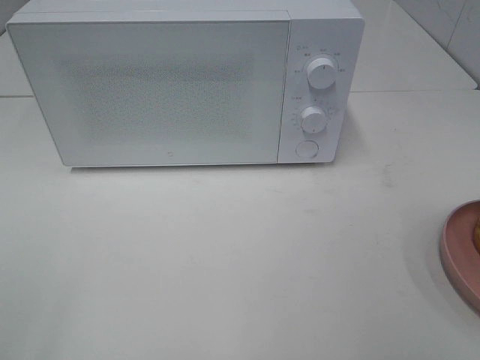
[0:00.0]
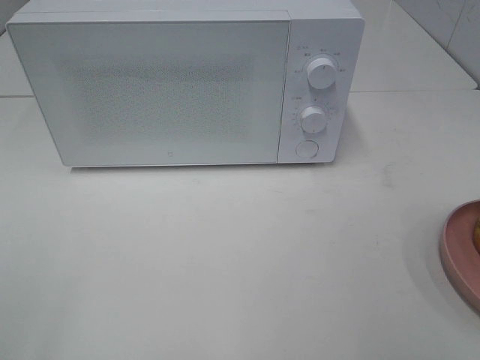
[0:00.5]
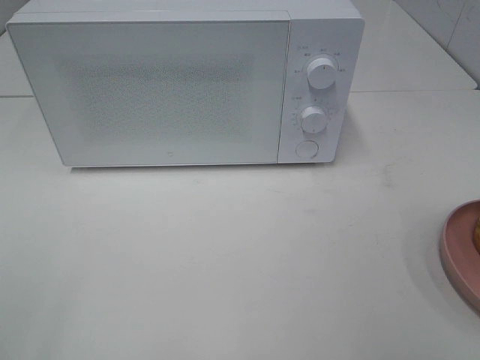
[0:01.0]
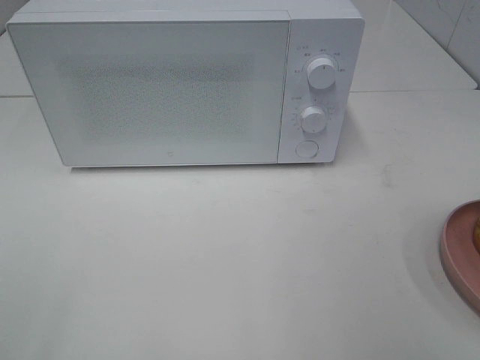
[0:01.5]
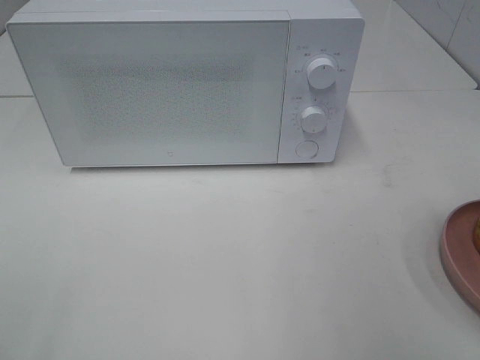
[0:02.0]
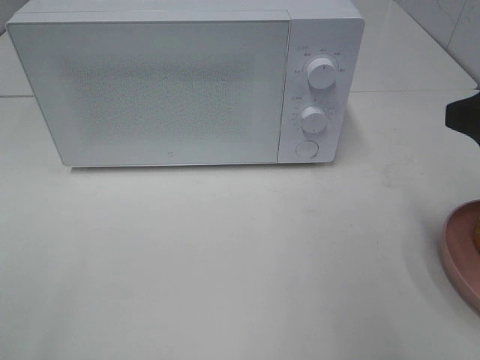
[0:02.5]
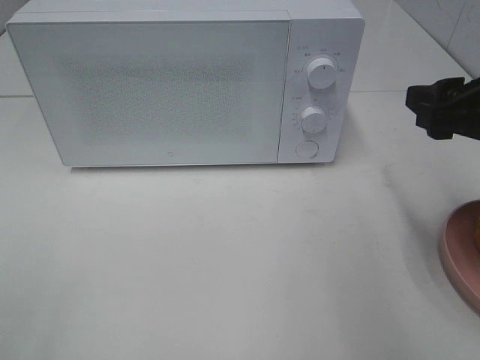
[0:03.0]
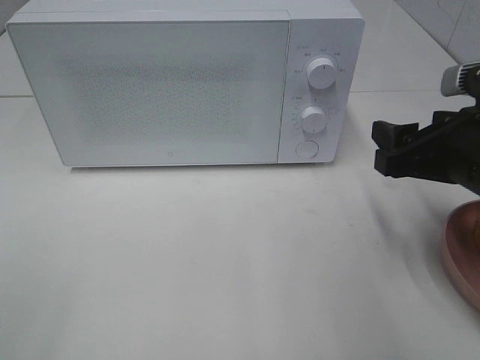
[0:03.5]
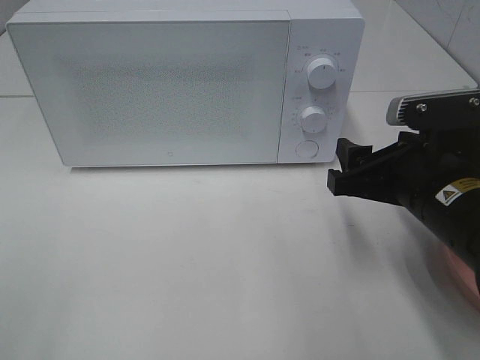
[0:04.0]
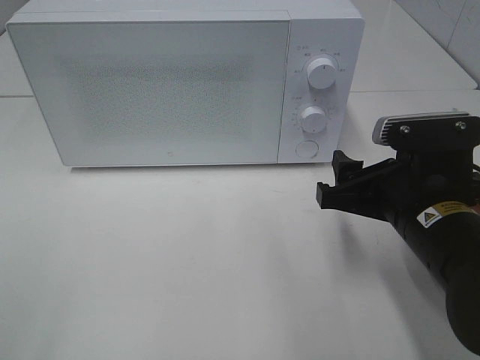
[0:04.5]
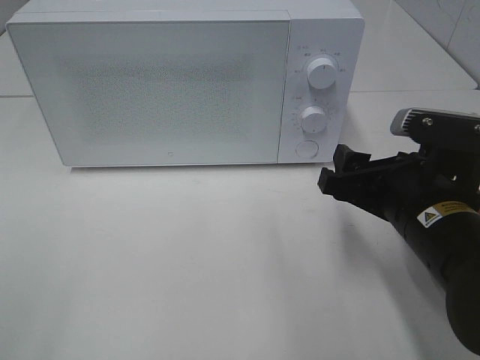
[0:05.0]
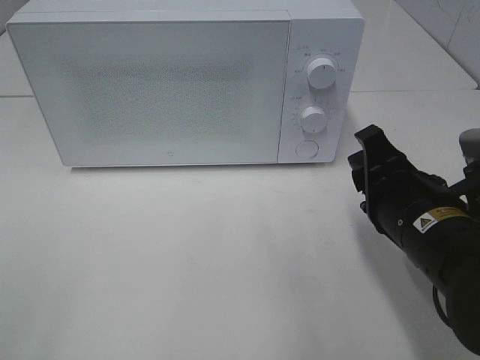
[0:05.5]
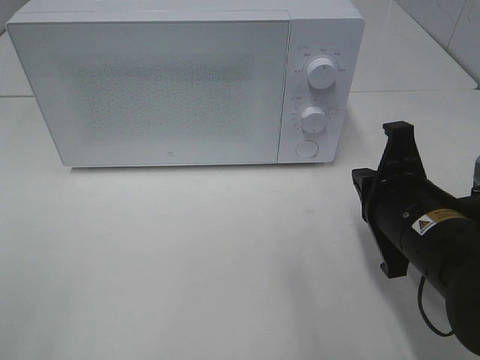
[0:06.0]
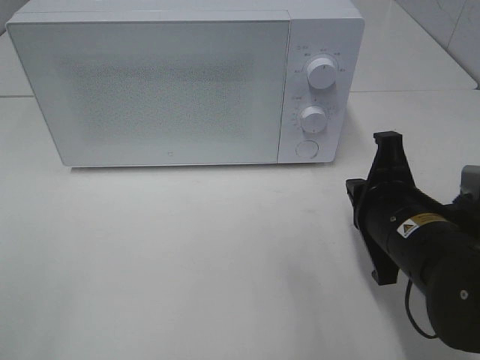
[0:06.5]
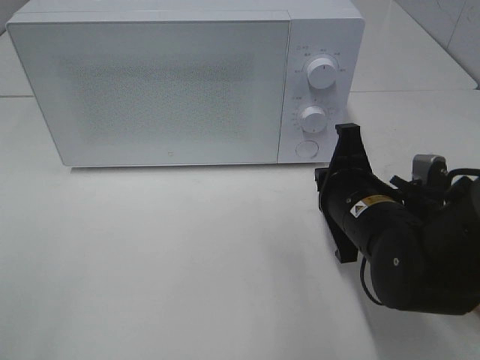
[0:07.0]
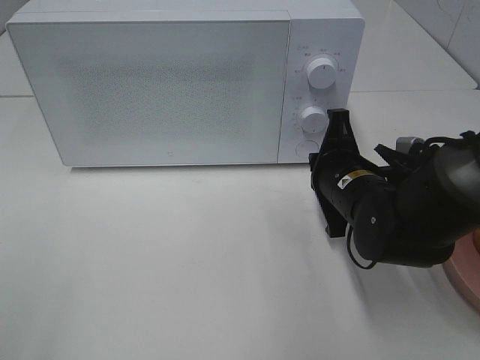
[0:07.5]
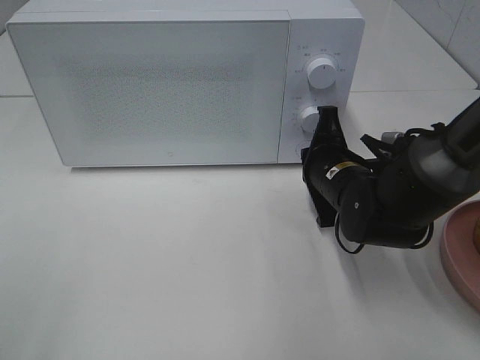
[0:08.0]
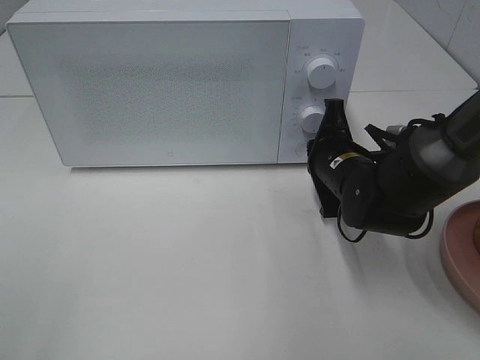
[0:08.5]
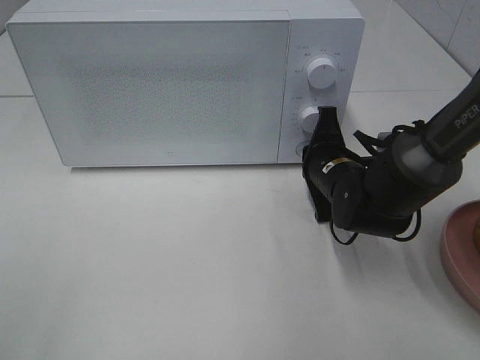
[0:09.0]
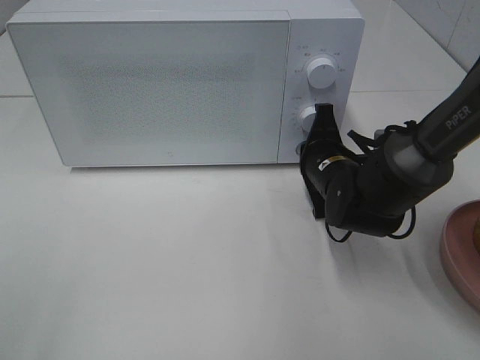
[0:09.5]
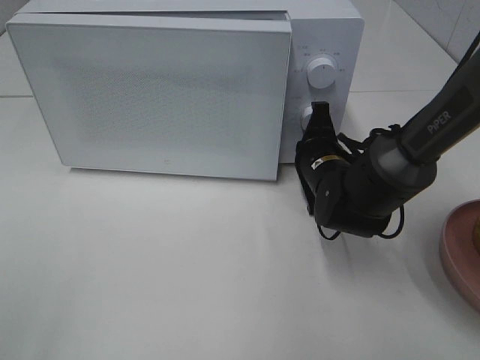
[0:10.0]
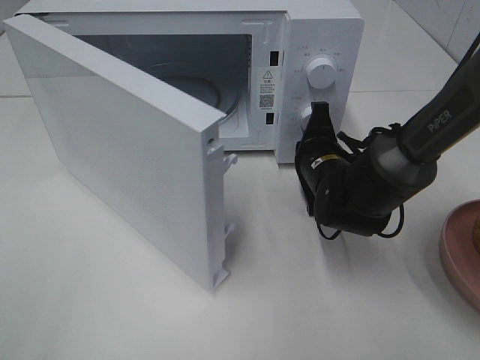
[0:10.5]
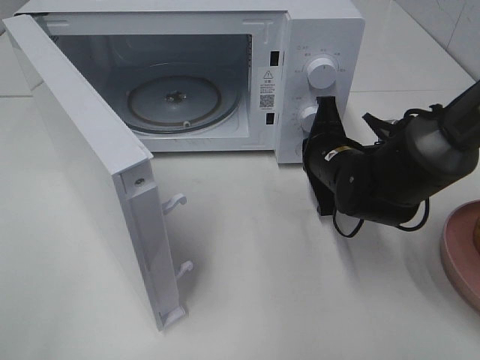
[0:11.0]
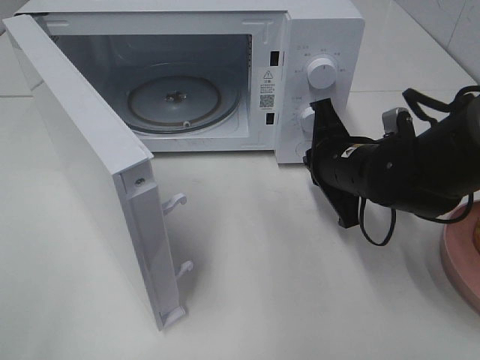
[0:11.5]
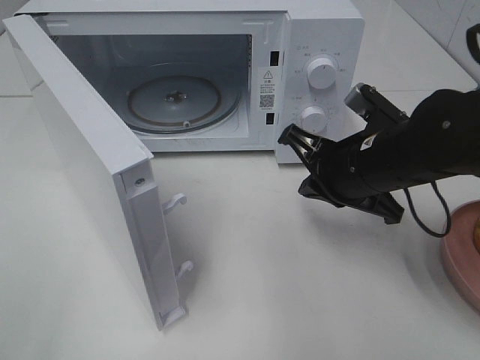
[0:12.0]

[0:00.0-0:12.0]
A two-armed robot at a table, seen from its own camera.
Task of the whole recording: Heat the burger.
Step, 0:00.0 to 0:11.0: Right hand: press the switch.
0:02.0 to 0:04.0: The right gripper goes about 20 cm downward, forward and to the left.
0:04.0 to 0:06.0: The right gripper closes up.
0:06.0 to 0:08.0: The right gripper shifts roughly 15 cm forward and downward.
0:08.0 to 0:10.0: There are only small adjustments of the grippers.
0:10.0 to 0:12.0: The right gripper shifts approximately 10 cm upward and backward.

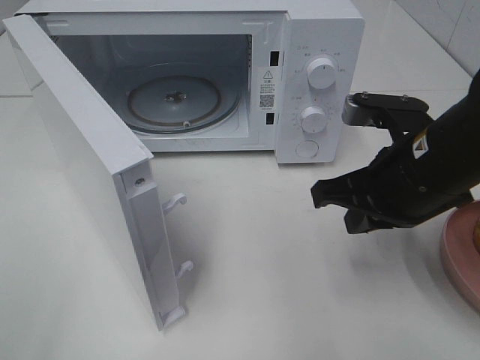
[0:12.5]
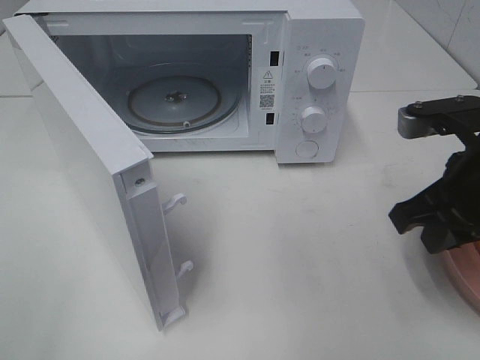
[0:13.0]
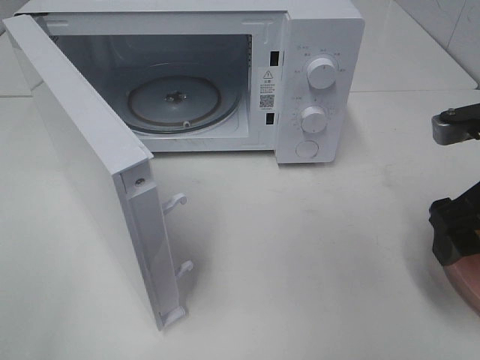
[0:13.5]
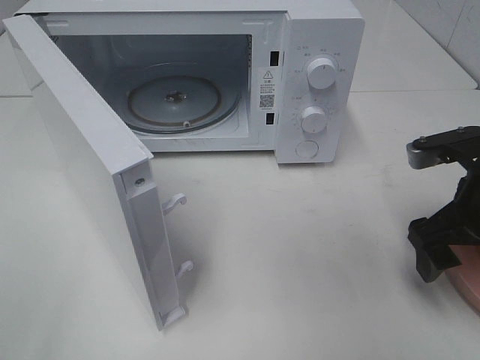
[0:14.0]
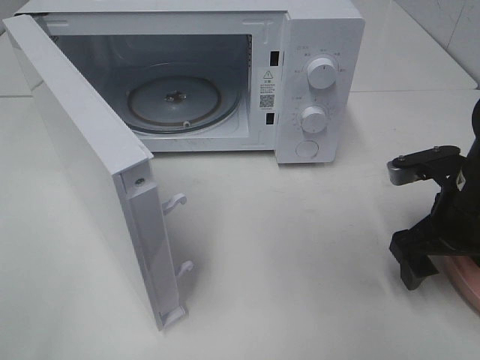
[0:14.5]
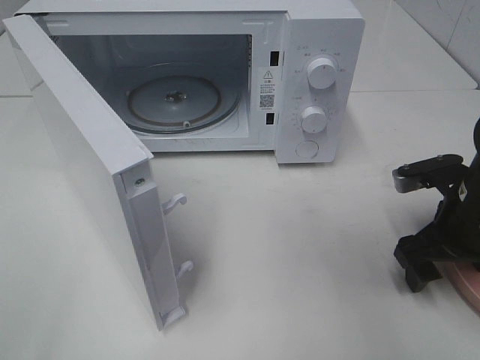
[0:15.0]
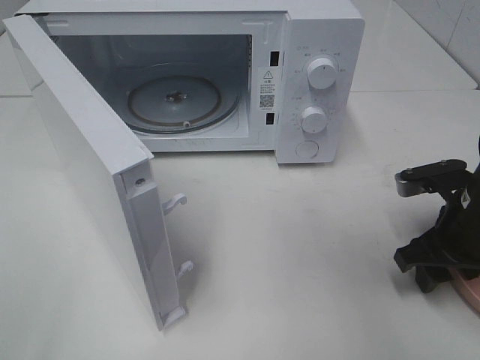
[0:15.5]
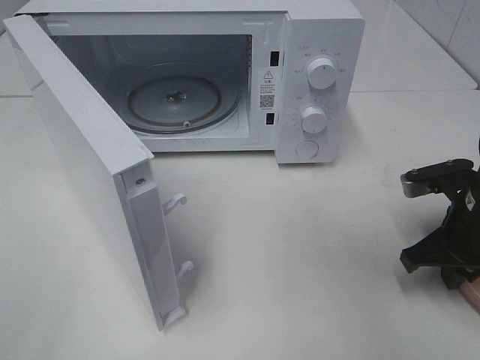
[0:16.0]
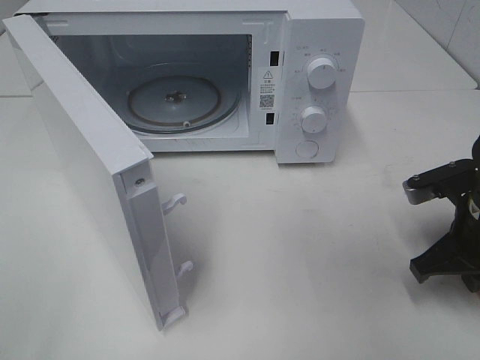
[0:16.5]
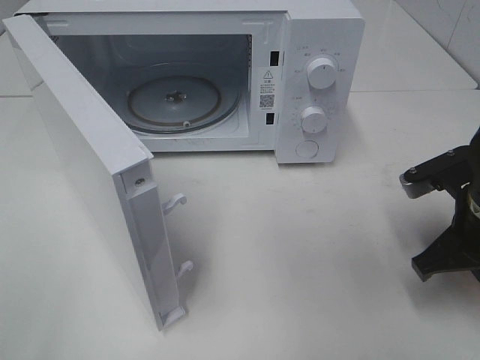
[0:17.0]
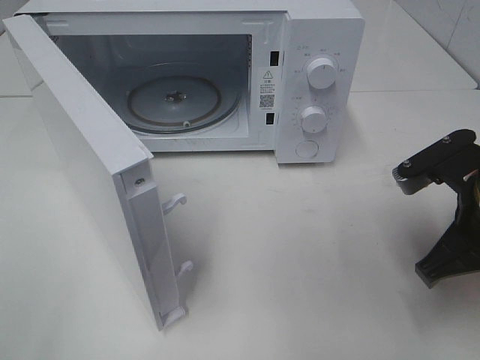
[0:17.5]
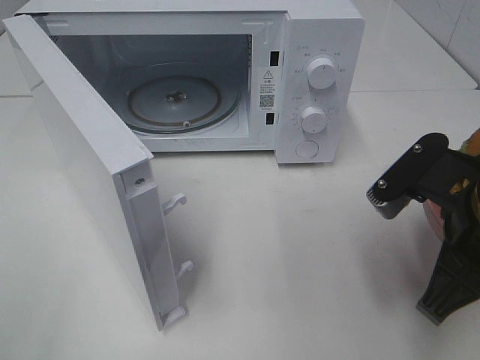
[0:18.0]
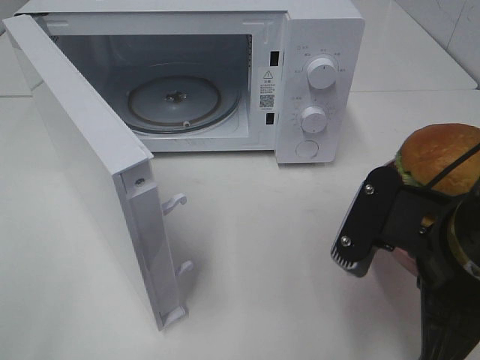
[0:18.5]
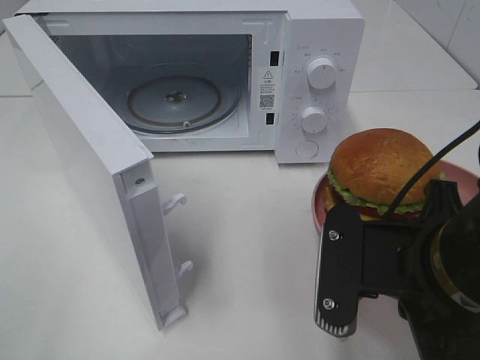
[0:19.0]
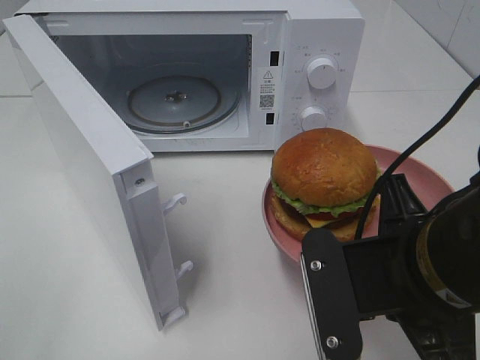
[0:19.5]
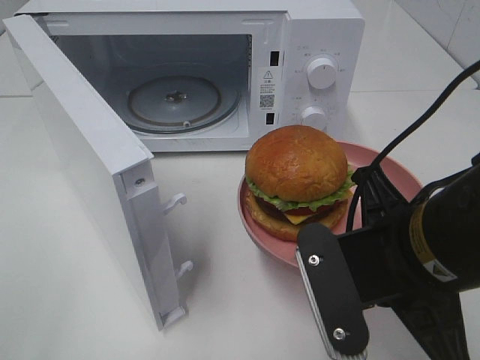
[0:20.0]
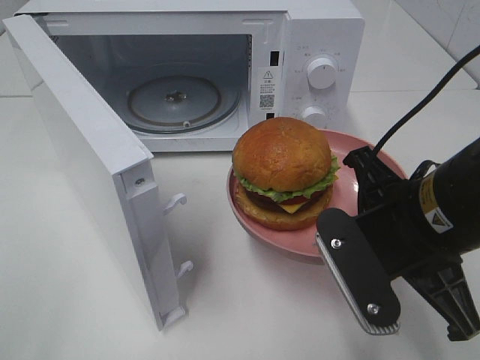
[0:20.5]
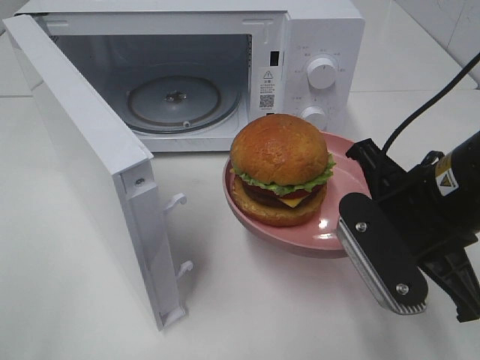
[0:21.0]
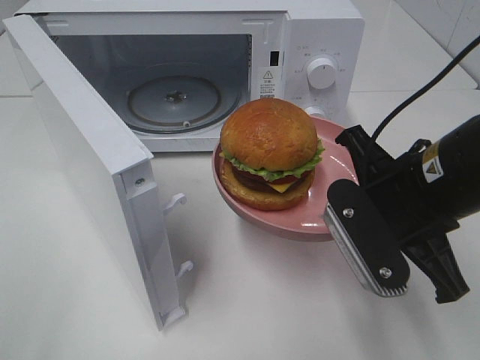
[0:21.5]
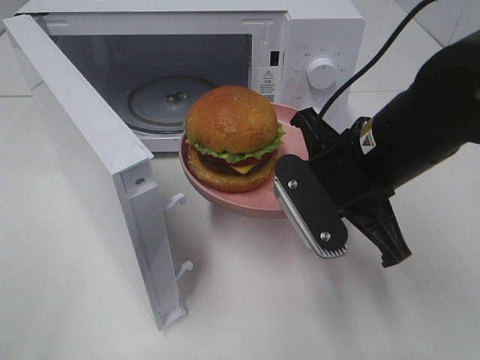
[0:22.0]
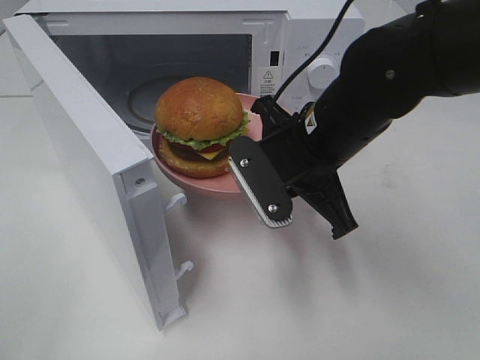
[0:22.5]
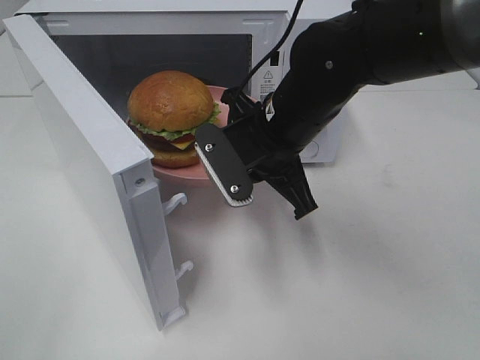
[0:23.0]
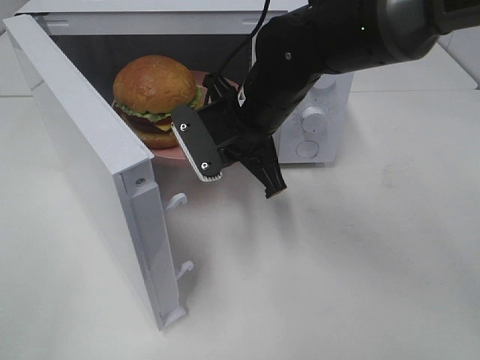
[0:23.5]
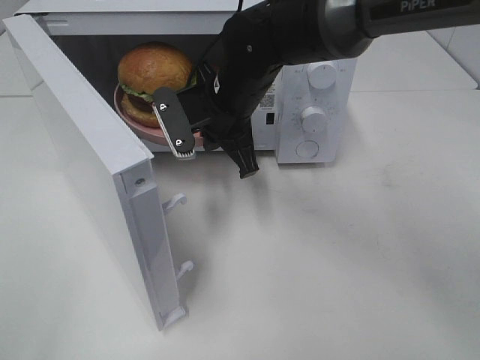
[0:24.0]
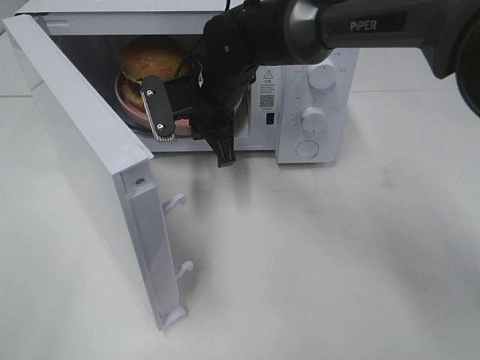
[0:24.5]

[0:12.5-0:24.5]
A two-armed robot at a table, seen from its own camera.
Task of the whole recording: Heat the burger.
Step, 0:12.5 to 0:16.5: Right hand: grab the plate with the hamburger.
0:12.5 to 0:14.5: The right gripper heads to the right and downward, covering approximately 10 cm, and opens.
0:14.5 to 0:16.5: The right gripper closes.
0:16.5 to 0:18.5: The right gripper moves to the left, backward and upward, some 15 cm.
0:20.5 to 0:22.5: The right gripper goes approximately 10 cm forward and to the left.
0:22.5 to 0:24.5: The right gripper heads forward and to the left, covering roughly 15 cm.

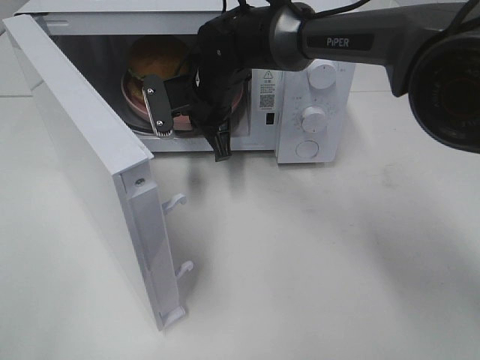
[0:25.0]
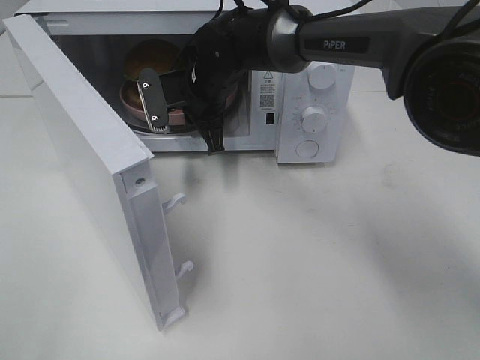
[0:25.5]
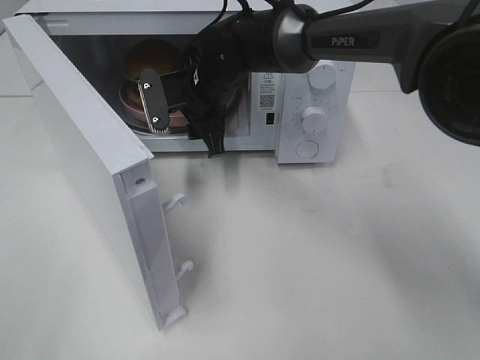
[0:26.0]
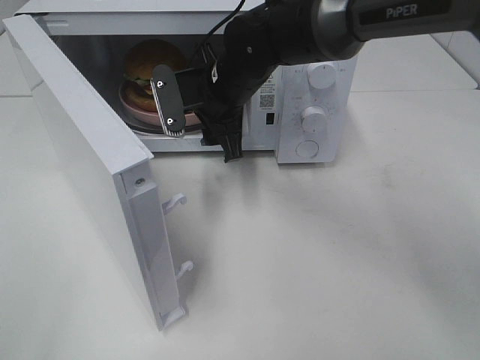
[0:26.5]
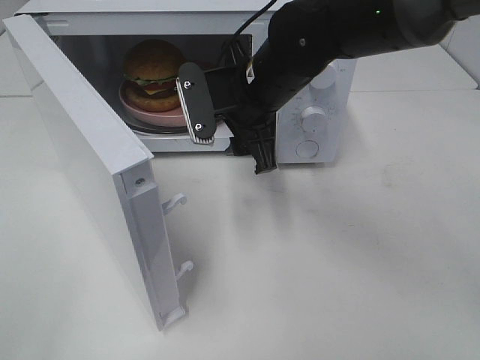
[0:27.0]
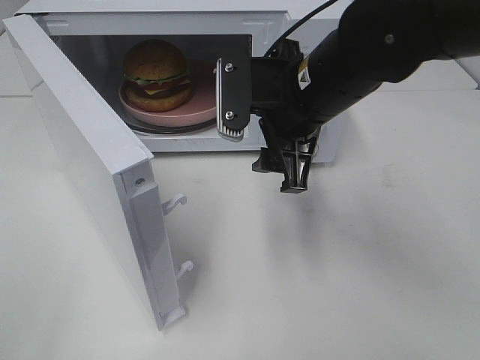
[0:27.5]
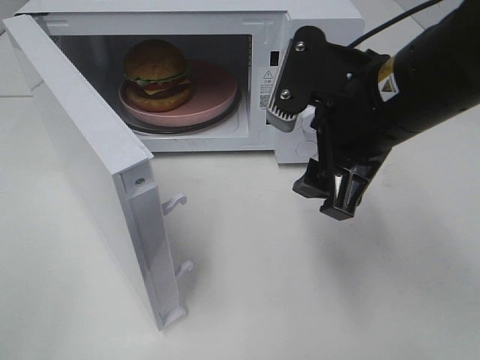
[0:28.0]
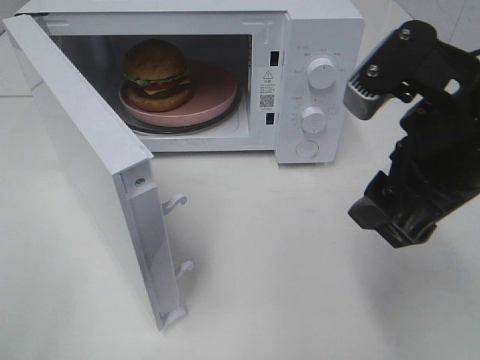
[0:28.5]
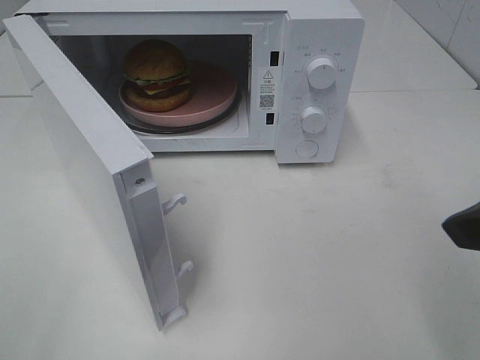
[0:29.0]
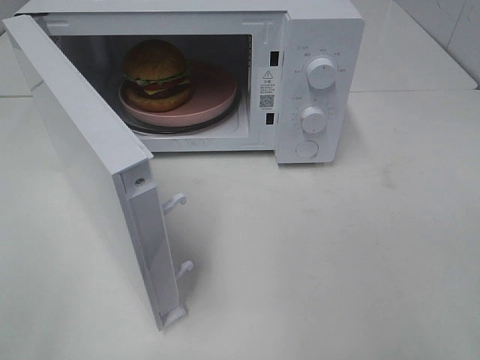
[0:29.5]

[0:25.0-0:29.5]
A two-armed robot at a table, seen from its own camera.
Task of the whole recording: Heat the burger.
0:25.0 to 0:27.0: The right gripper moves backward and to the right, approximately 10 cm, and opens its fingers.
0:27.0 to 0:29.5: The right gripper goes approximately 35 cm backward and to the right.
